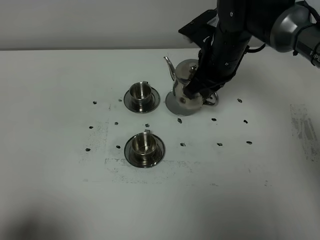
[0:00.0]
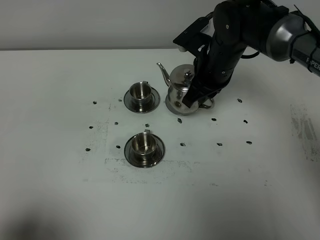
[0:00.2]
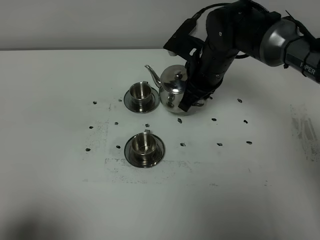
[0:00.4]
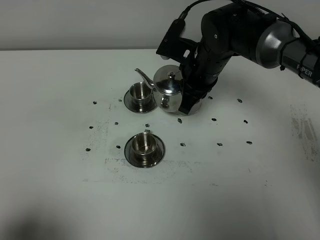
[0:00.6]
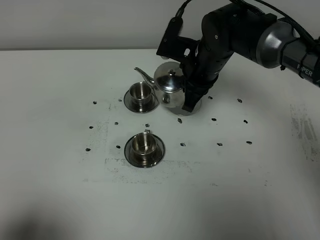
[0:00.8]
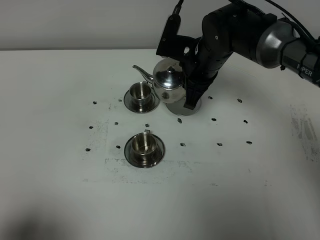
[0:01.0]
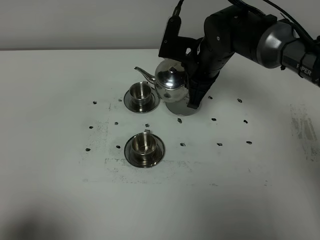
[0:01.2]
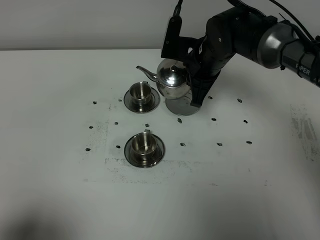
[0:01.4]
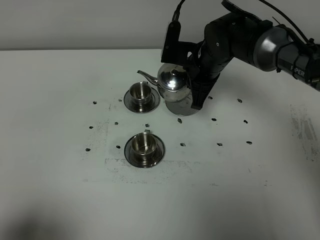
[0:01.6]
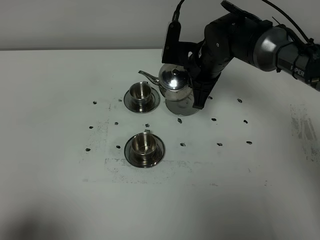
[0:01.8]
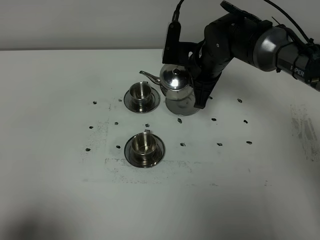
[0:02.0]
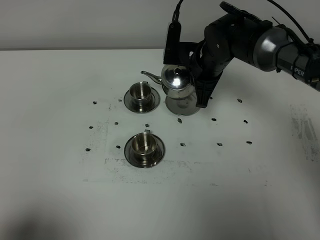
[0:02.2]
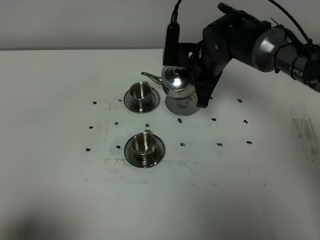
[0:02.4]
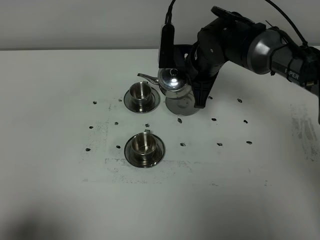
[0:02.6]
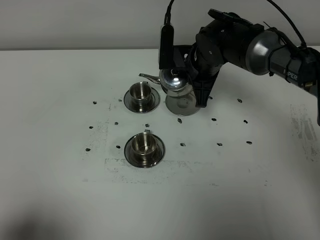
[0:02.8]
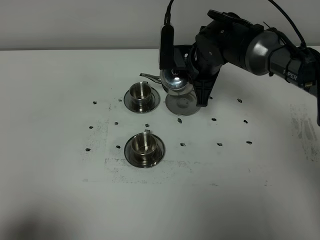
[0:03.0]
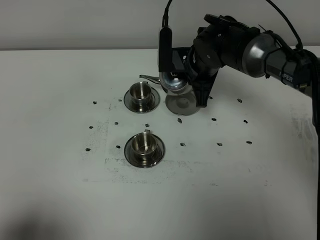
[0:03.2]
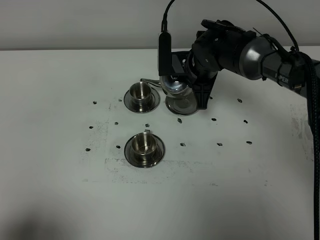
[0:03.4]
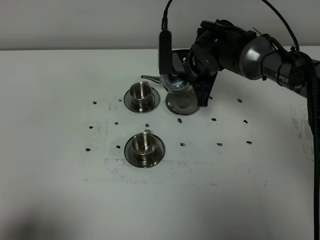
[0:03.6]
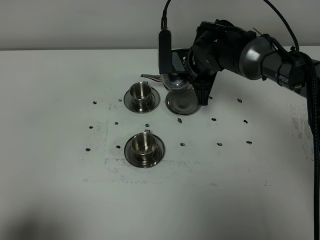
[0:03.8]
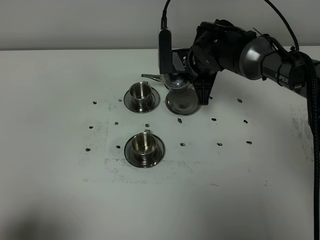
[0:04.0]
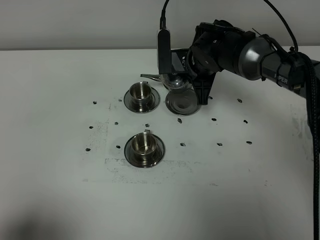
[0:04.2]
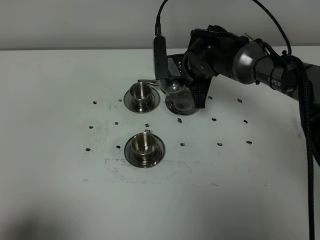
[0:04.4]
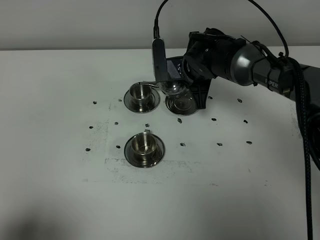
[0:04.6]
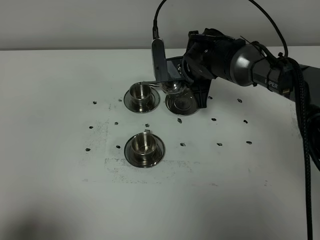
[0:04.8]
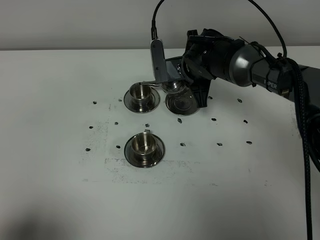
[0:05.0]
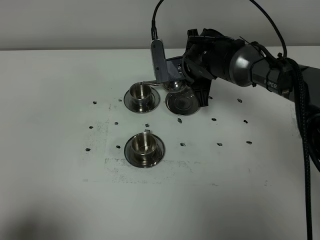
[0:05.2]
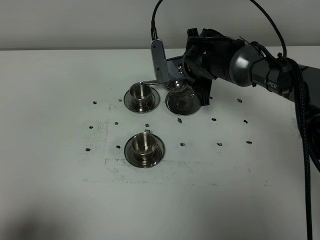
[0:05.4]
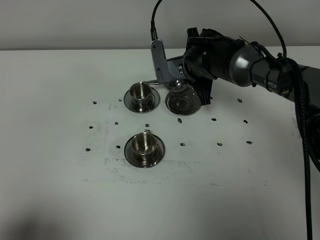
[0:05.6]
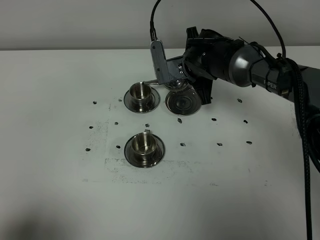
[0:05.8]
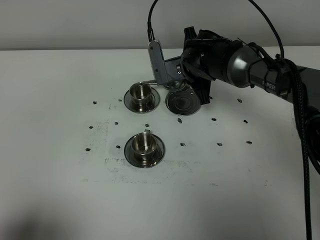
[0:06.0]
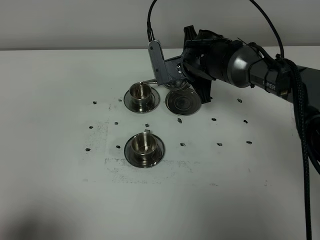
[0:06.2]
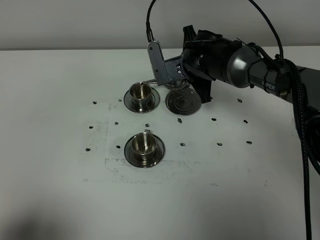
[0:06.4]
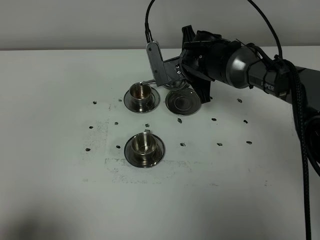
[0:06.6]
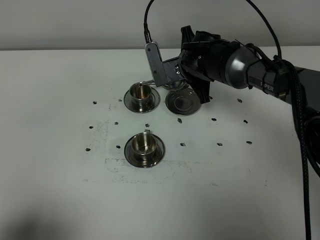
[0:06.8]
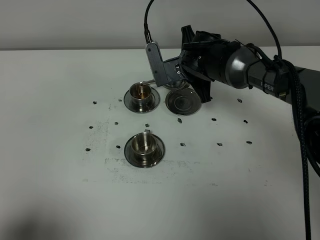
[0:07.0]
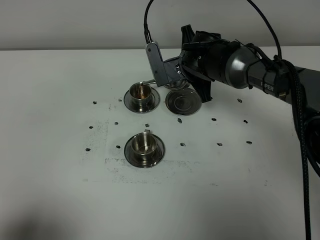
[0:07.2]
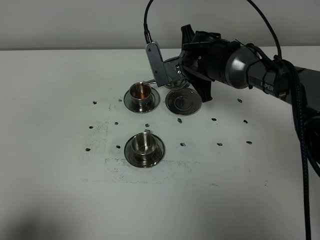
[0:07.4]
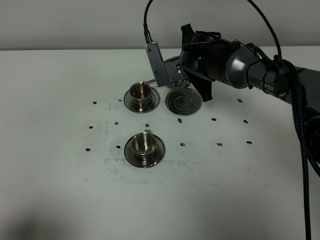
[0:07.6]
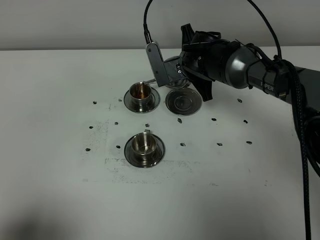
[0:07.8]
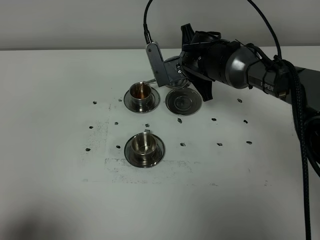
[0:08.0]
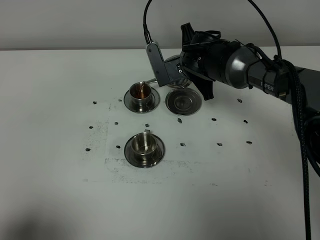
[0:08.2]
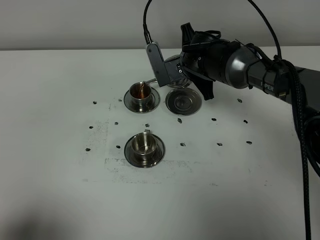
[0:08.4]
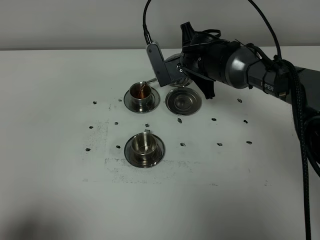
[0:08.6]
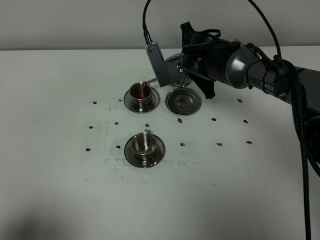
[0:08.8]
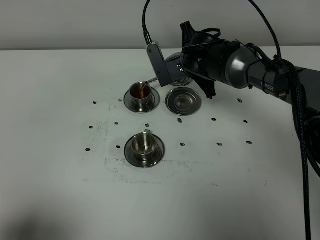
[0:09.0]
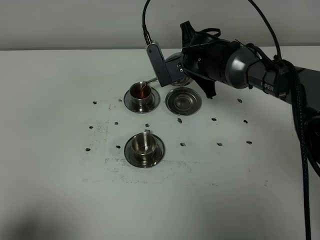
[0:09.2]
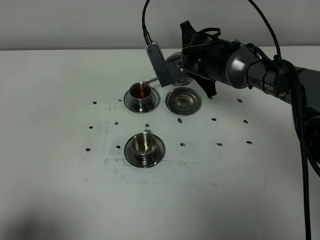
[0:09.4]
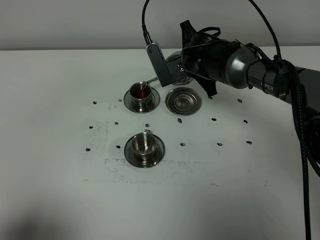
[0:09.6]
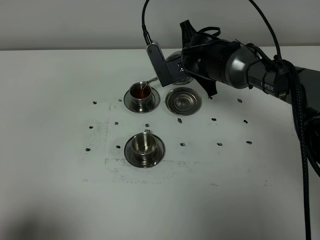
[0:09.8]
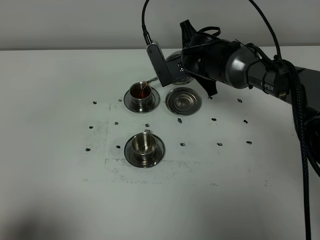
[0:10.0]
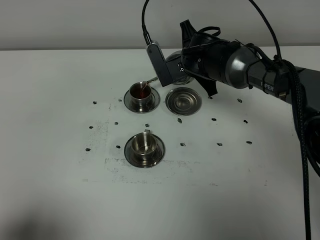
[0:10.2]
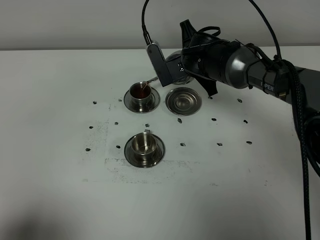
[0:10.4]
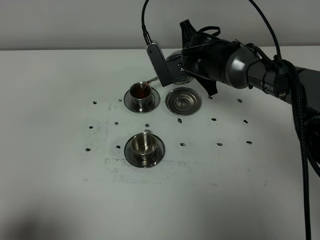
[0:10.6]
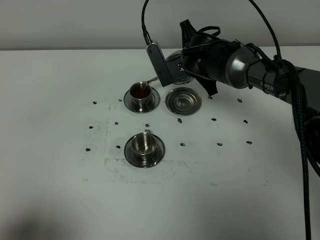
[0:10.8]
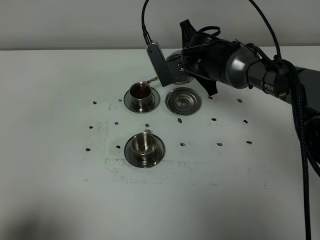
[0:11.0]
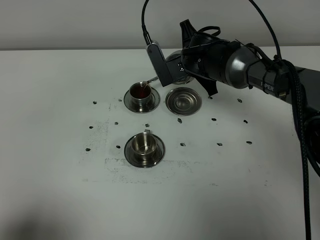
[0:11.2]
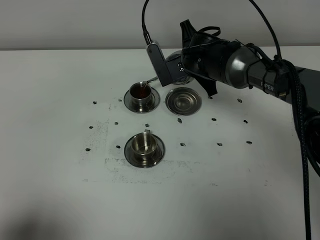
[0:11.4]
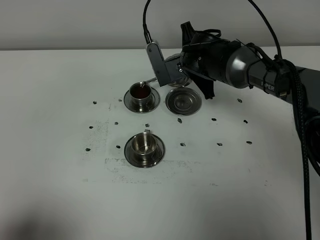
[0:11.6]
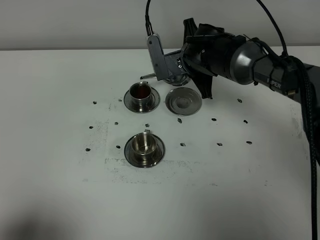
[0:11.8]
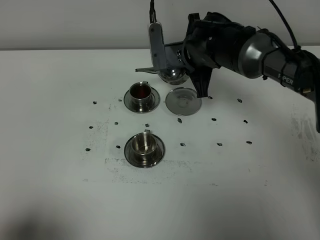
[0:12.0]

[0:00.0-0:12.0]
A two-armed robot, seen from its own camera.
Task of the whole recording: grasp the stainless steel teapot and pour the tea into the two stainless steel teacups one by one, put the stainless steel teapot back in its original place.
0:01.6 to 0:03.0: The grippers stay close to where they were, moving slightly.
0:03.0 to 0:06.0: There are only small adjustments of the grippers.
0:06.0 to 0:07.6: The grippers stay close to where they were, moving slightly.
0:07.6 to 0:09.0: The two grippers keep their place.
0:09.0 to 0:10.4: The two grippers keep their place.

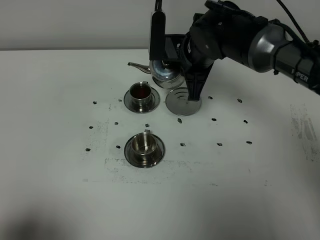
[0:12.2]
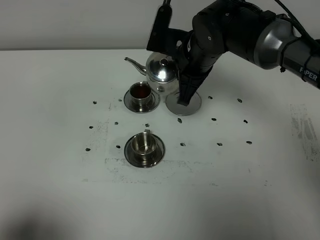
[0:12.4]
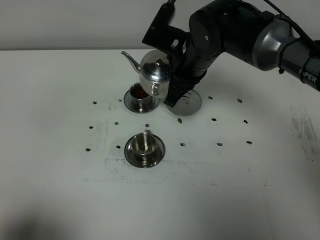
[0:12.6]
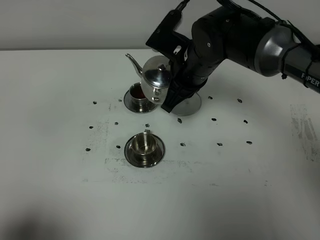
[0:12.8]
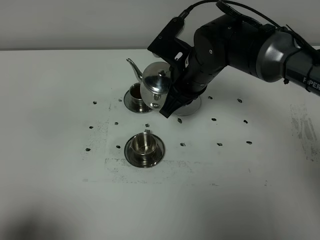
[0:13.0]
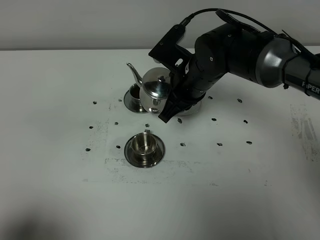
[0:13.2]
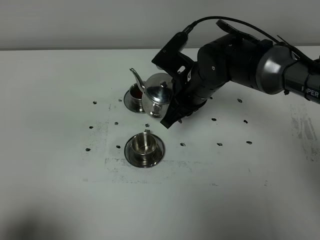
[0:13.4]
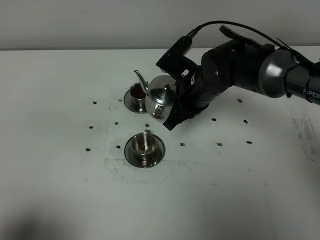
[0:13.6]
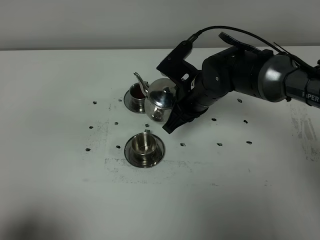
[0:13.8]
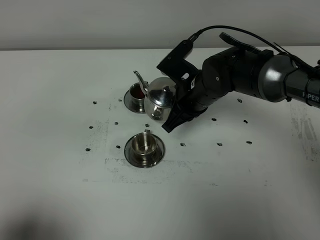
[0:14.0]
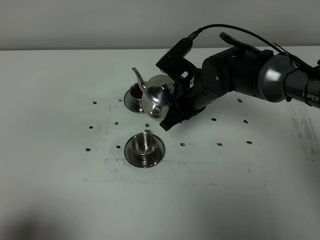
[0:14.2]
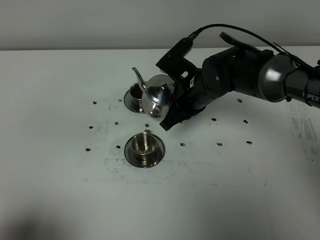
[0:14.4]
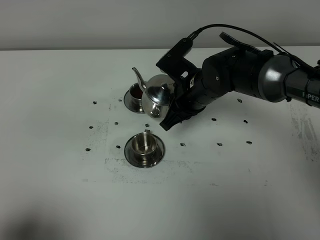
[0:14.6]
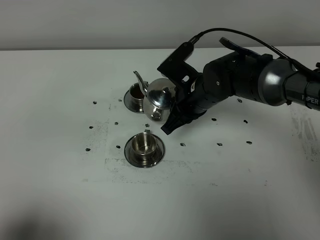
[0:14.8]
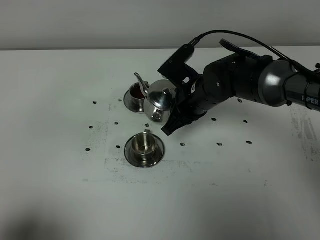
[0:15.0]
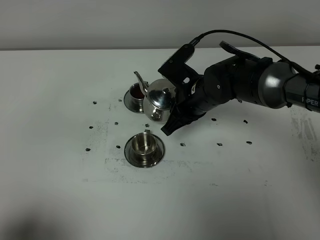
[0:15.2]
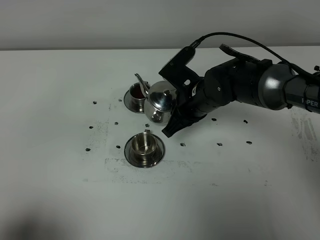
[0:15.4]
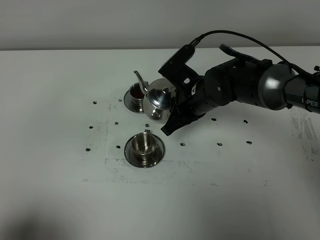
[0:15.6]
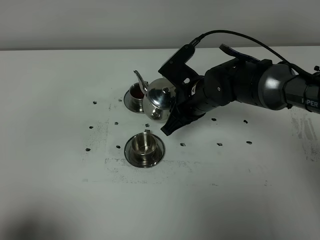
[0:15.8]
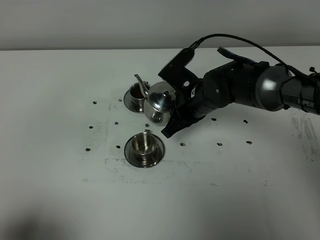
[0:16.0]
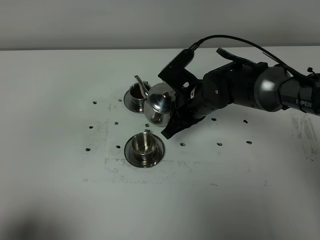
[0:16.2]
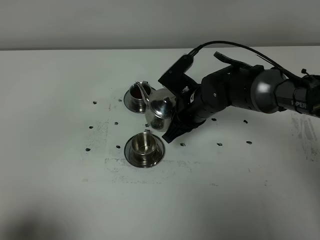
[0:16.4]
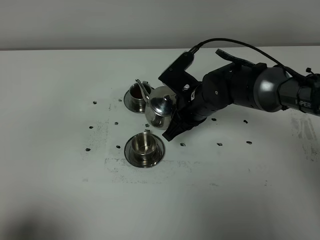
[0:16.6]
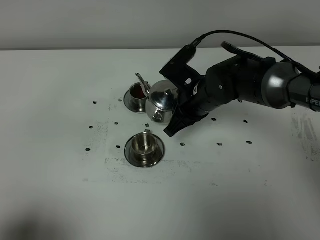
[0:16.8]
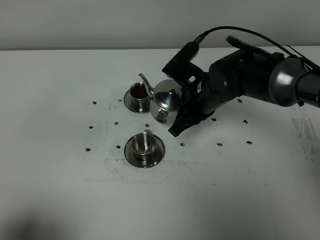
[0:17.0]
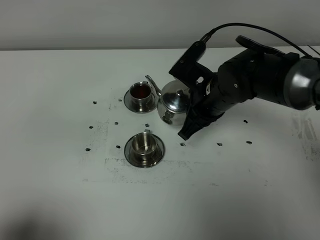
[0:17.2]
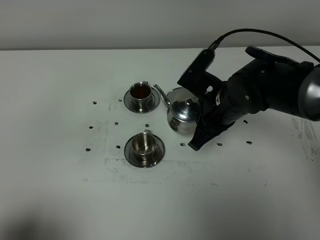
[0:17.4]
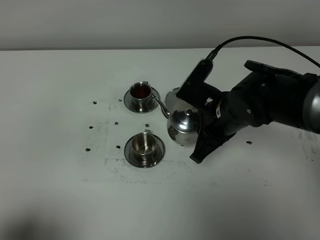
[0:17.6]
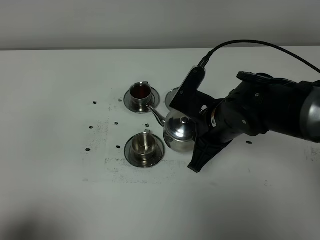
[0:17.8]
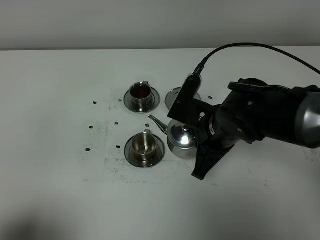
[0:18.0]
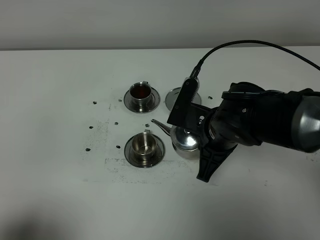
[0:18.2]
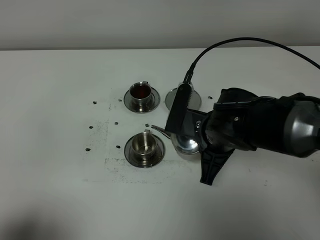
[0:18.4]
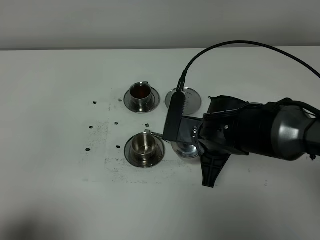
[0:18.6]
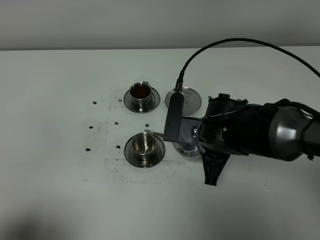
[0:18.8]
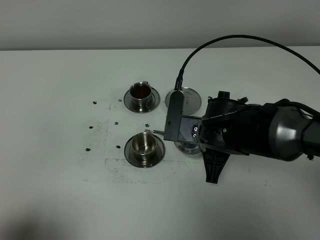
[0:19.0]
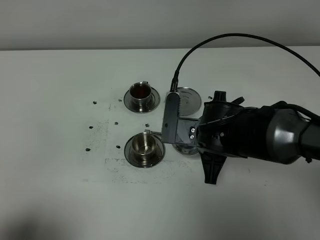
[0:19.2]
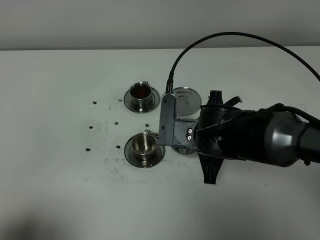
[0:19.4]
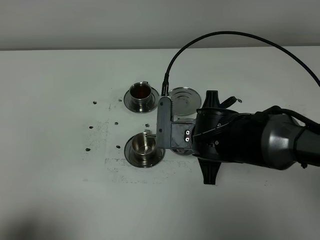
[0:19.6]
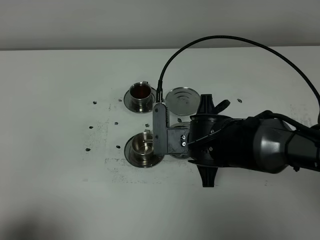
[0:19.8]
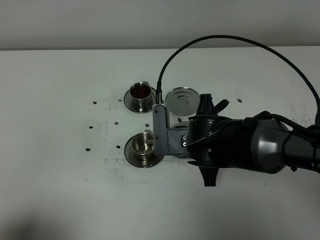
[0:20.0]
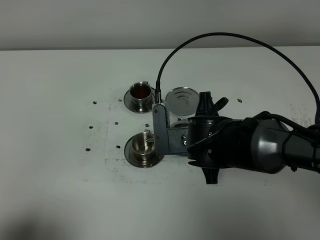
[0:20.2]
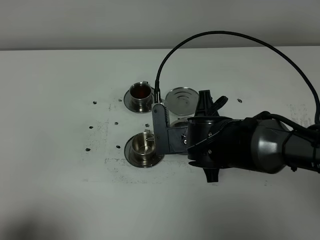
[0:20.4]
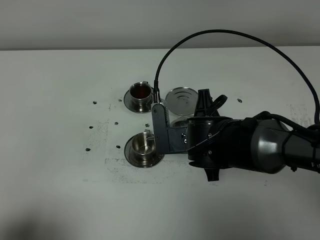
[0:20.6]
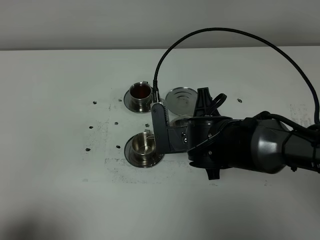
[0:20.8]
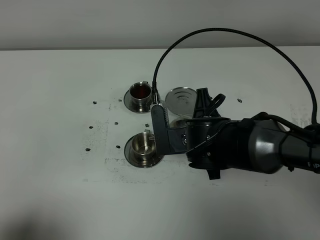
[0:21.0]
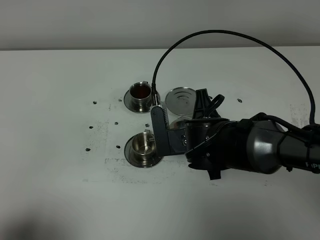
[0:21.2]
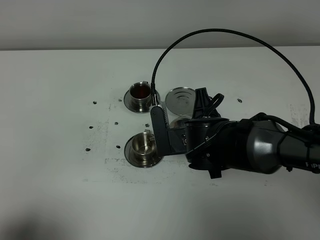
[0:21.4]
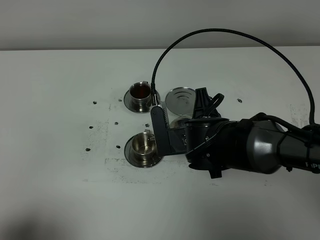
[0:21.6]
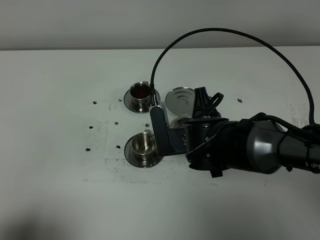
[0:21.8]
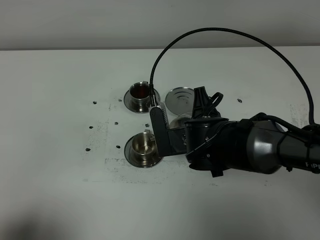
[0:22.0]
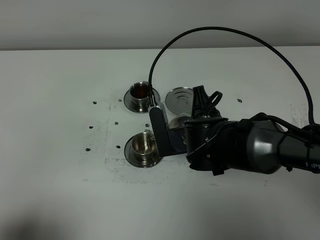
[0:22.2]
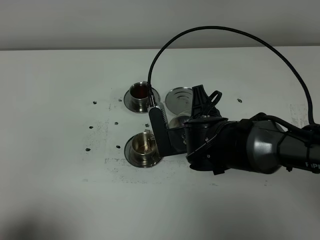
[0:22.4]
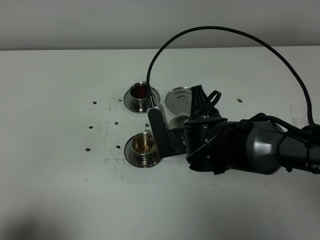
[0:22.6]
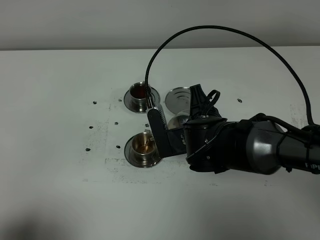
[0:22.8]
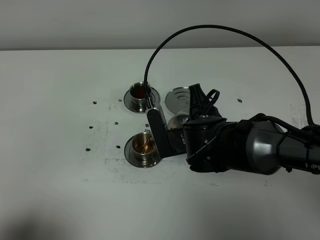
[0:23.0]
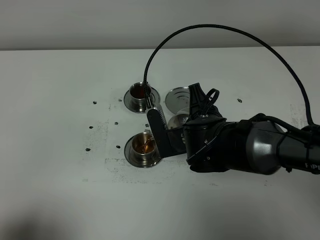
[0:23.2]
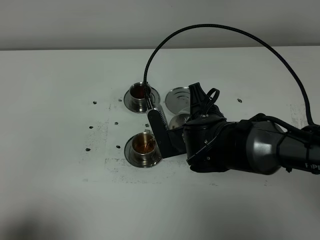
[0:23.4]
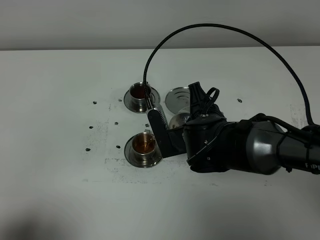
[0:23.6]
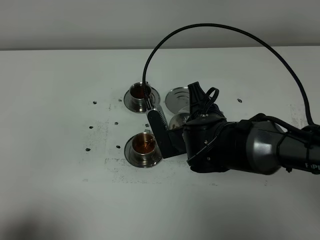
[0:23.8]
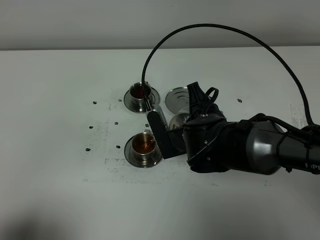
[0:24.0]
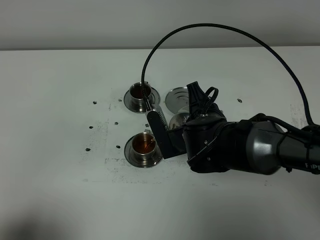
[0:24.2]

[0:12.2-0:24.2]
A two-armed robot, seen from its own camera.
Task of the whole recording: grasp the stainless steel teapot and pour the tea into the two stainless steel teacups one by one, put the stainless steel teapot back in its original place.
0:12.2 to 0:13.8: The right gripper shifts approximately 5 cm downward.
0:13.8 to 0:15.2: The two grippers keep their place.
0:15.2 to 0:16.6: There are only small adjustments of the grippers.
0:16.6 to 0:18.2: The right gripper travels backward by roughly 10 cm.
0:19.8 to 0:22.6: The grippers stay close to where they were, moving slightly.
0:22.6 to 0:24.2: The grippers stay close to where they were, moving slightly.
